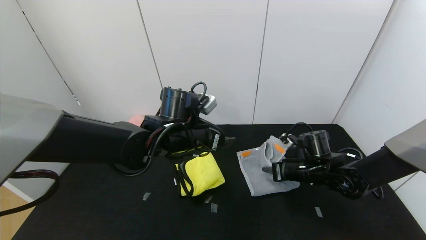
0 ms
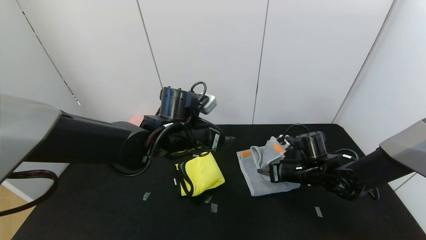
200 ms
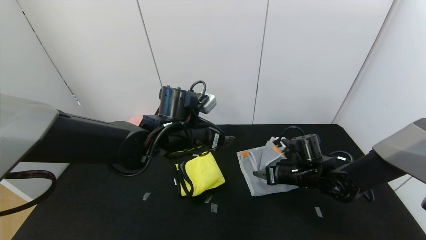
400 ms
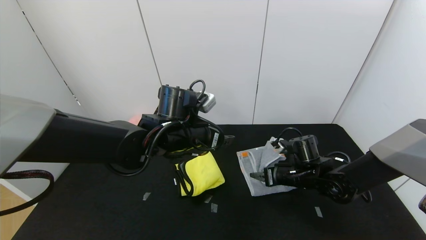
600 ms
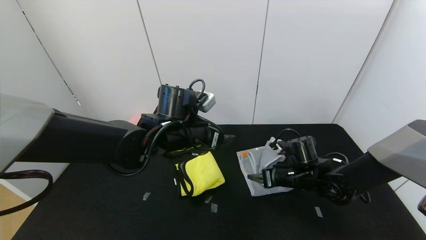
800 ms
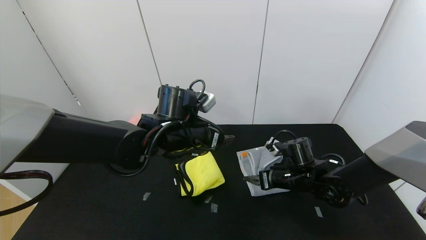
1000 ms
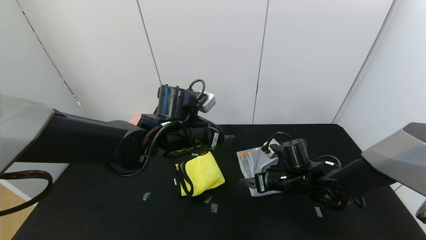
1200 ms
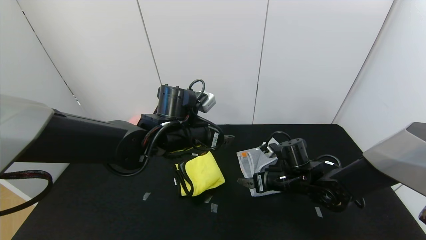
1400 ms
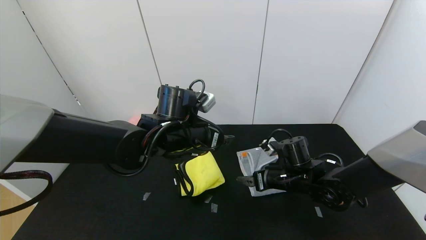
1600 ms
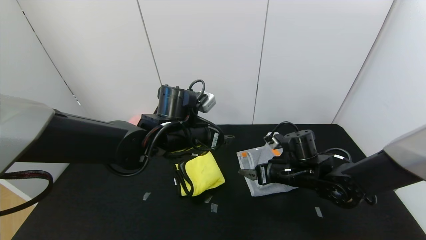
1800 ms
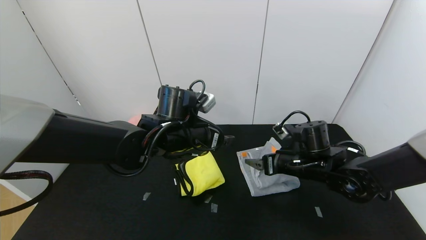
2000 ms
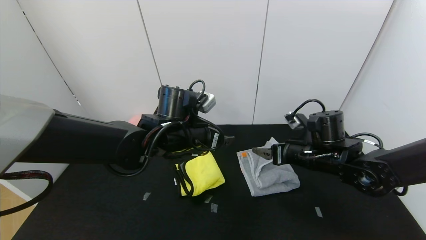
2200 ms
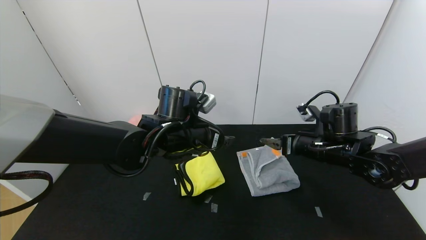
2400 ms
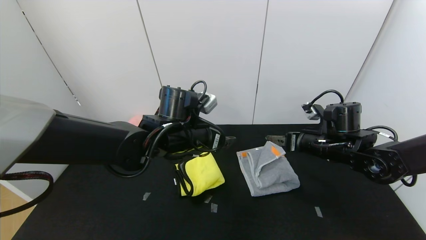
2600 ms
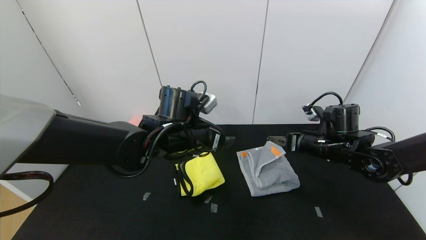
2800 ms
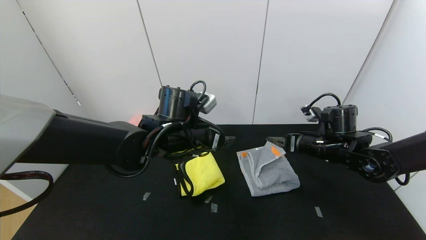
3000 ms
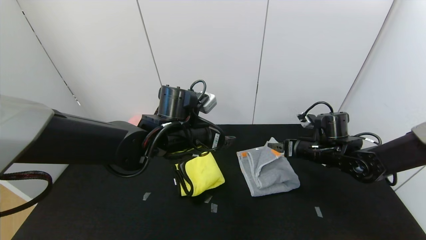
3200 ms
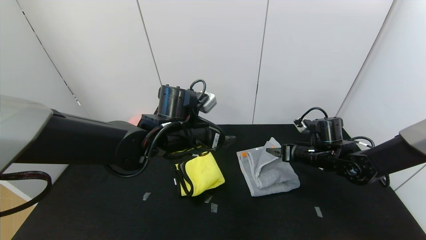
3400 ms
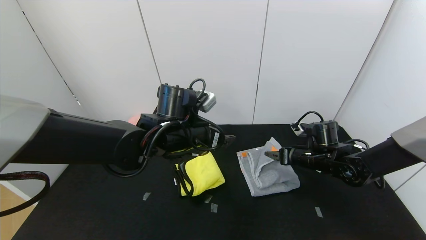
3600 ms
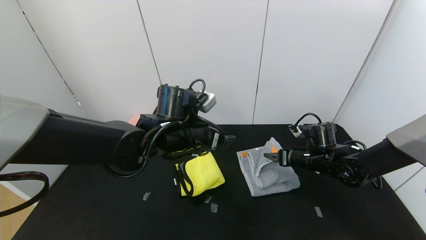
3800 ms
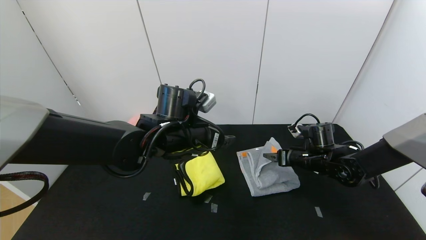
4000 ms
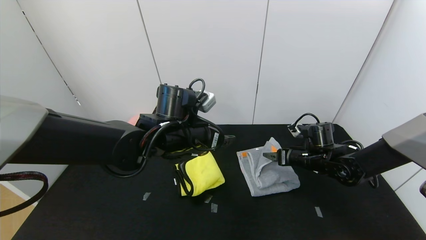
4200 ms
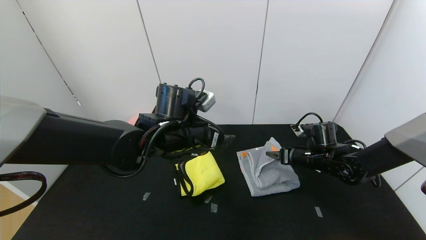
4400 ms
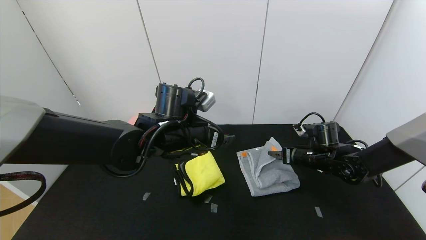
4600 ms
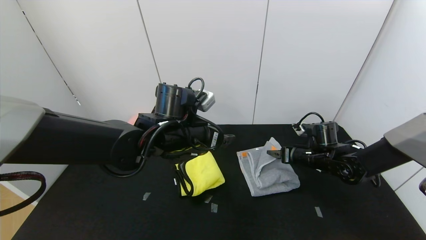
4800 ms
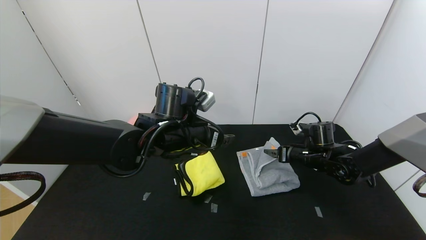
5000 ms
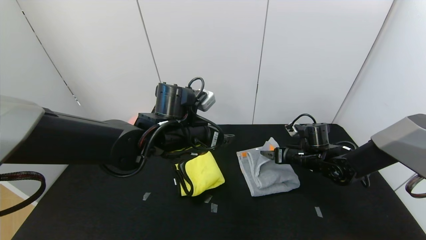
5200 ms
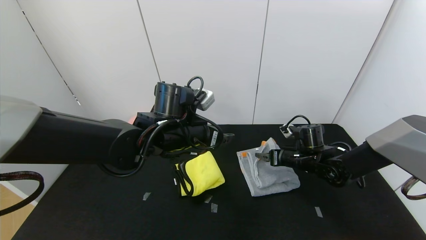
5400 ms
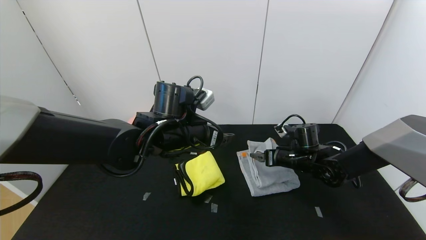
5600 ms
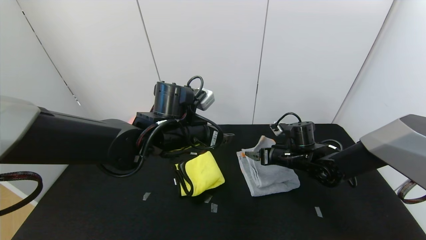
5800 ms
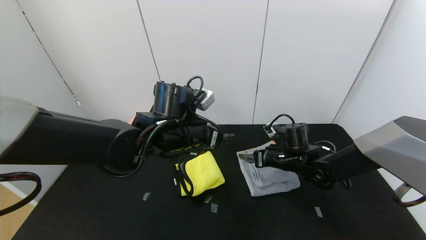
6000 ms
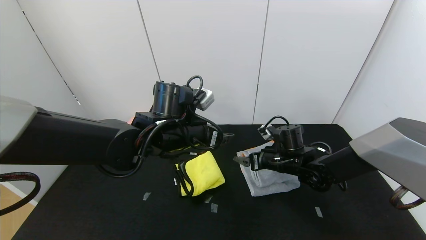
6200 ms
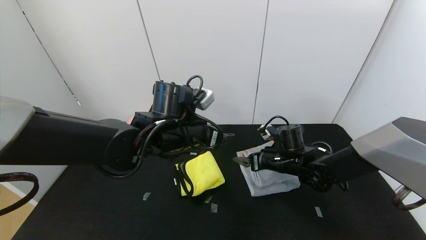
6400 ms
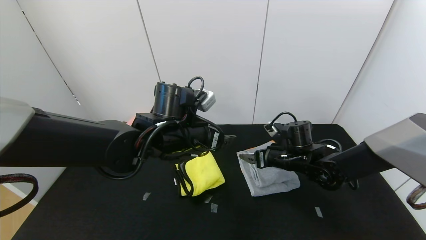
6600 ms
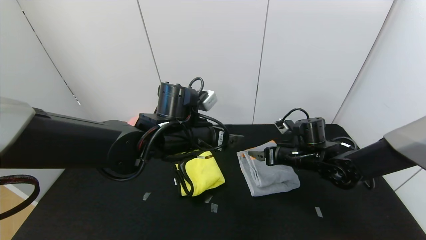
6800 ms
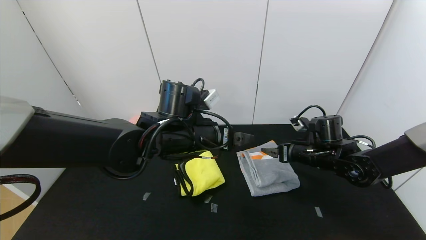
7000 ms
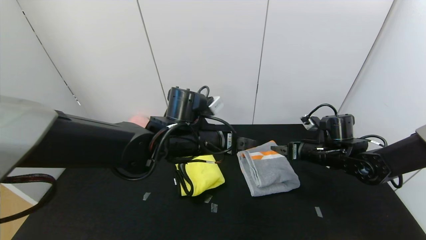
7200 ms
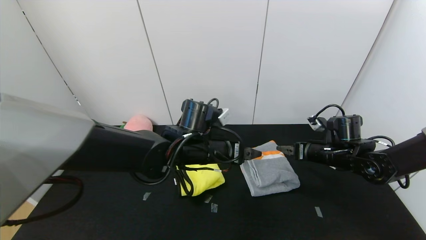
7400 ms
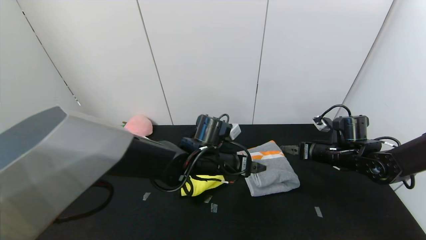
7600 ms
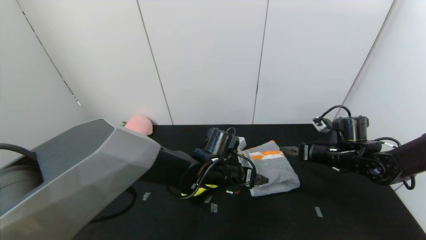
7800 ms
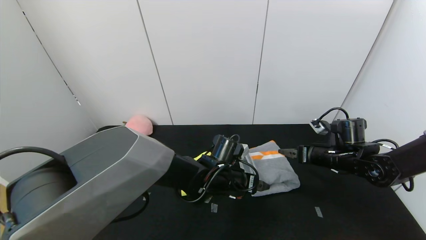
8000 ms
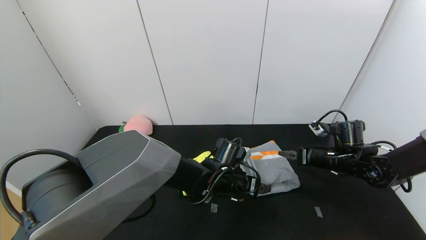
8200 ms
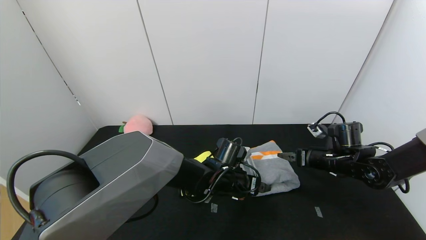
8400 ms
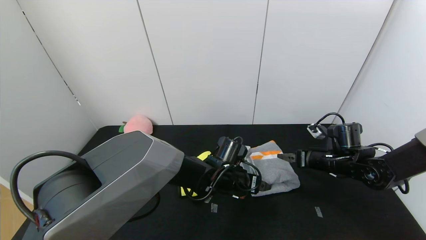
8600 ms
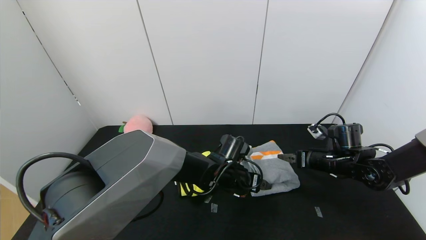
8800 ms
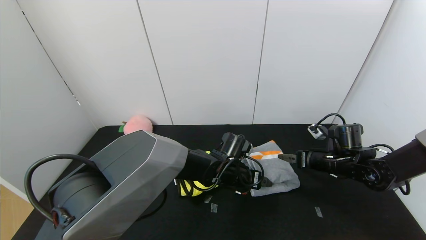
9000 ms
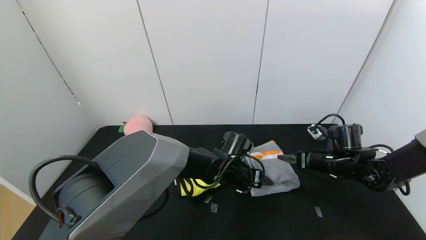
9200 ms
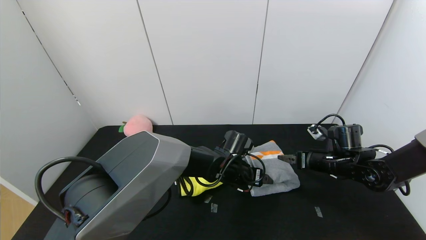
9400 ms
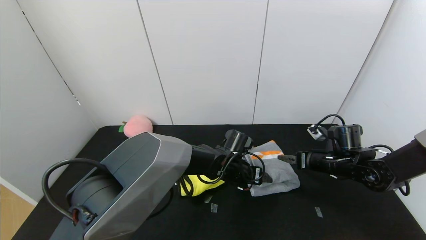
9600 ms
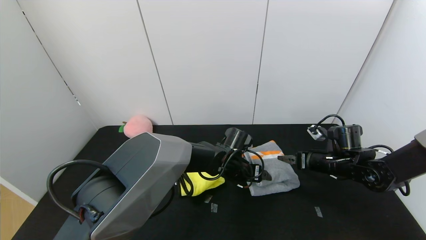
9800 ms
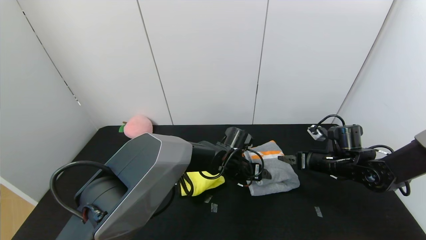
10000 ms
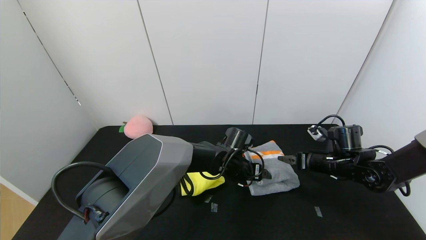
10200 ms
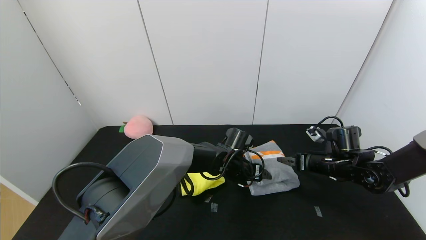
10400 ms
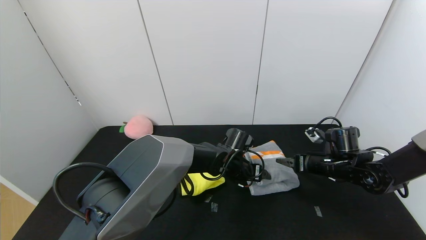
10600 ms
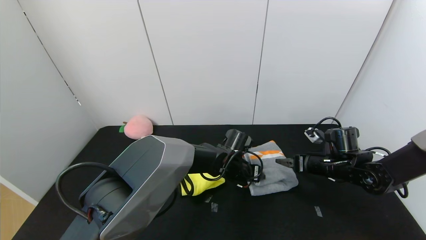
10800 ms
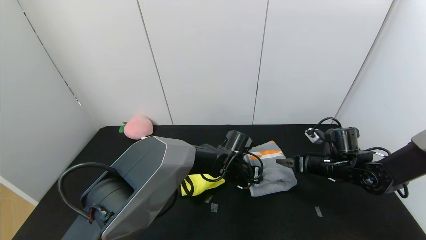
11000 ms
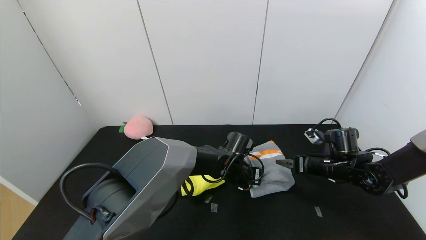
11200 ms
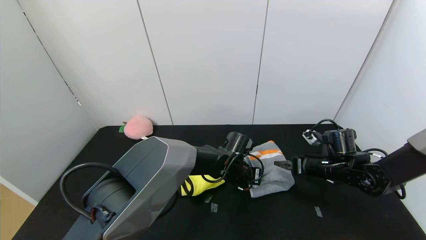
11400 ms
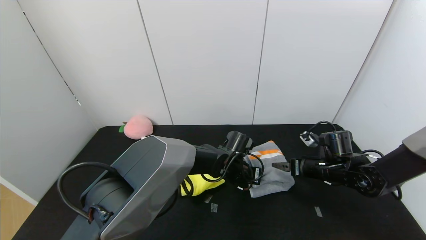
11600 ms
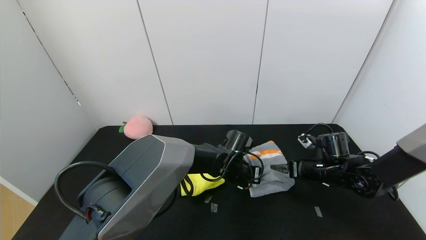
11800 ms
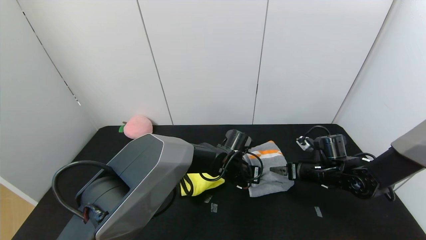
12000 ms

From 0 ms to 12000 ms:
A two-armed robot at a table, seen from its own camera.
Task of the whole recording: Use the gripper to fold the yellow towel and grey towel in half twice,then put the yellow towel on the grey towel.
Step, from 0 ms to 6000 ms: Fold the gray towel from right to left with right gripper.
From 0 ms to 1600 ms: The right gripper shifts approximately 5 cm to the left, and opens its fingers.
From 1600 ms to 3000 ms: The right gripper heads to the right and upward, covering roughly 10 cm.
From 3000 ms to 4400 ms: The right gripper travels downward by about 5 cm.
From 4400 ms to 6000 ms: The right gripper shifts about 10 cm to the left.
From 6000 ms to 7600 ms: The left gripper goes some 10 cm downward and to the right; the right gripper moves to the right, some 10 cm.
From 7600 ms to 9000 ms: The left gripper moves downward, some 5 cm.
From 9000 ms to 10400 ms: The grippers stay close to where they were, moving slightly.
From 10400 ms to 12000 ms: The left gripper closes.

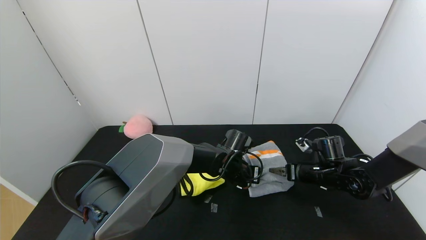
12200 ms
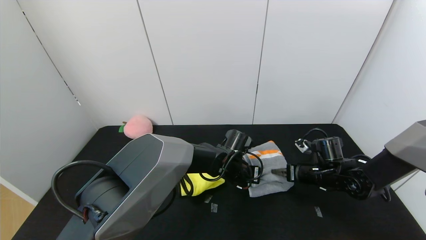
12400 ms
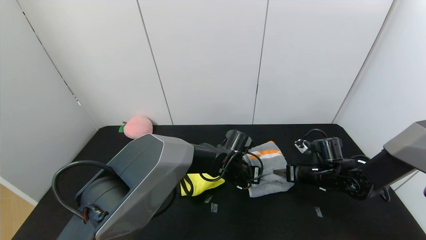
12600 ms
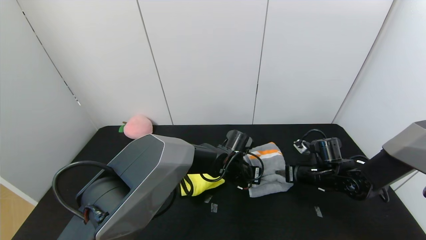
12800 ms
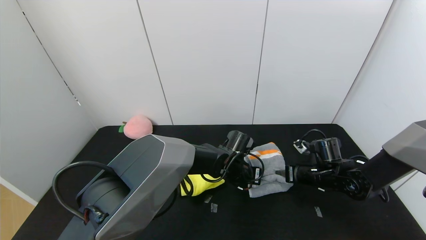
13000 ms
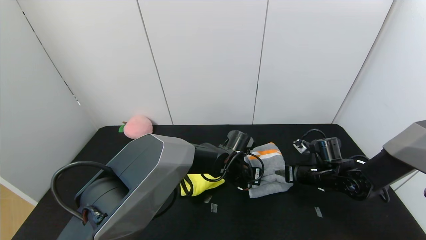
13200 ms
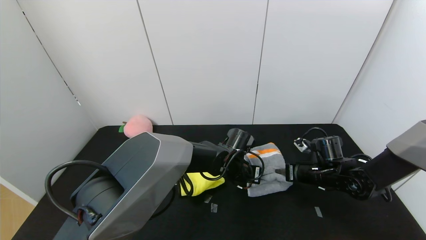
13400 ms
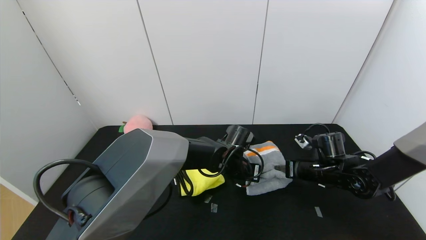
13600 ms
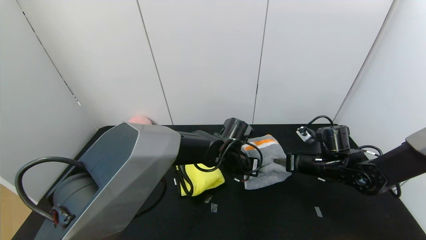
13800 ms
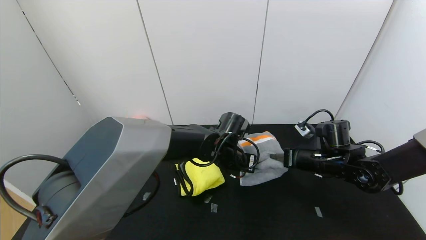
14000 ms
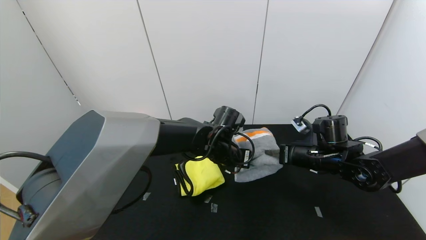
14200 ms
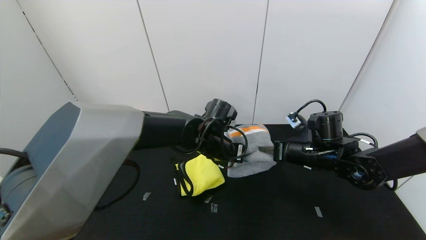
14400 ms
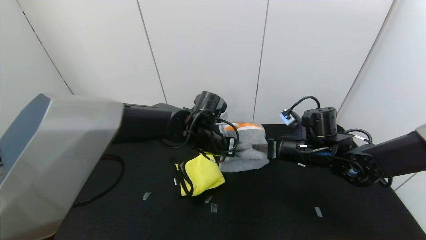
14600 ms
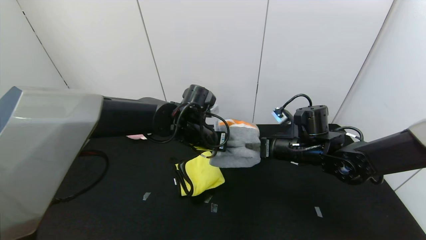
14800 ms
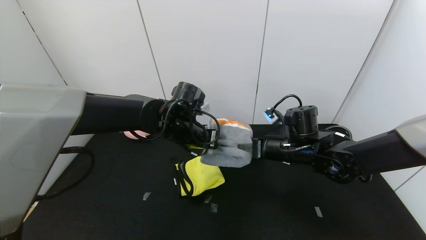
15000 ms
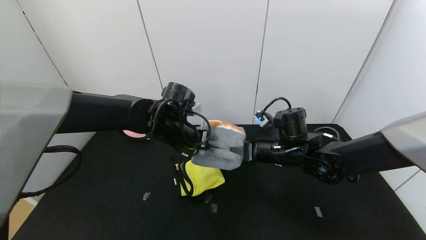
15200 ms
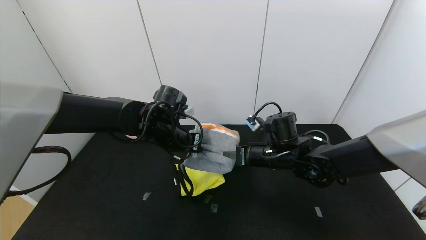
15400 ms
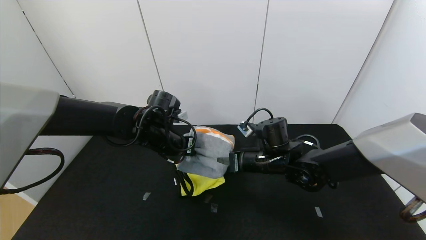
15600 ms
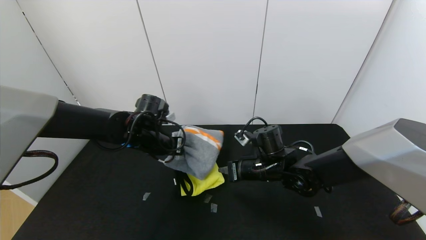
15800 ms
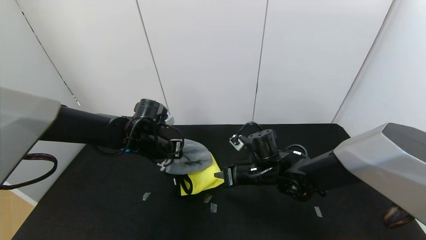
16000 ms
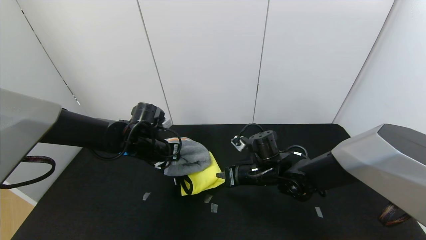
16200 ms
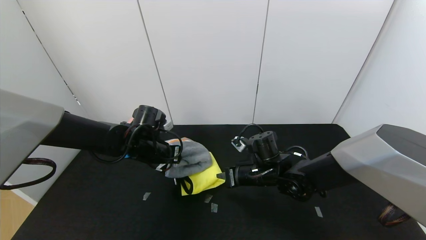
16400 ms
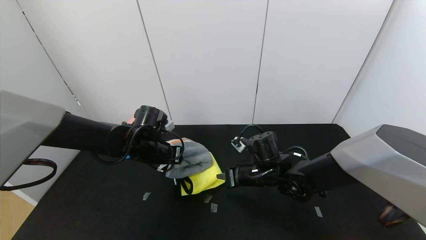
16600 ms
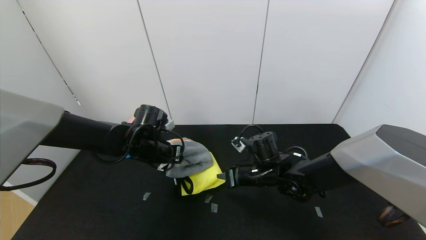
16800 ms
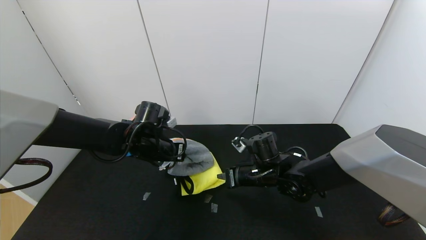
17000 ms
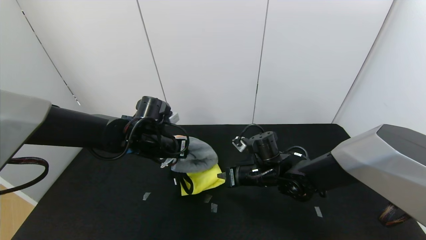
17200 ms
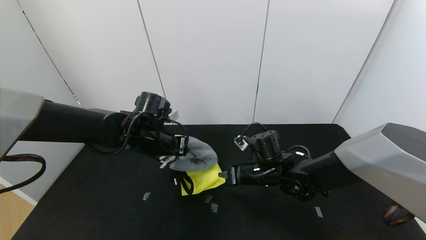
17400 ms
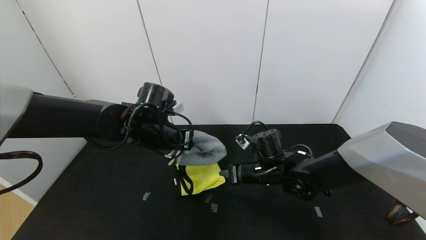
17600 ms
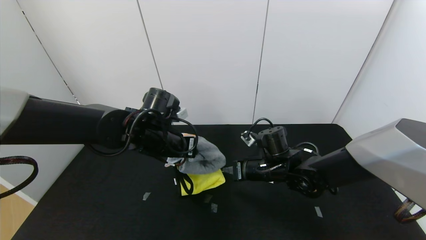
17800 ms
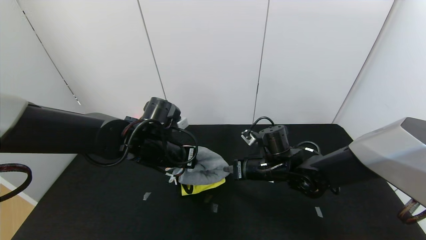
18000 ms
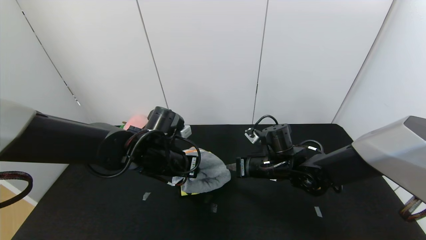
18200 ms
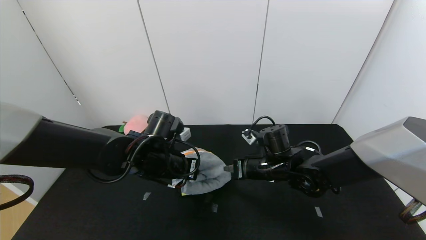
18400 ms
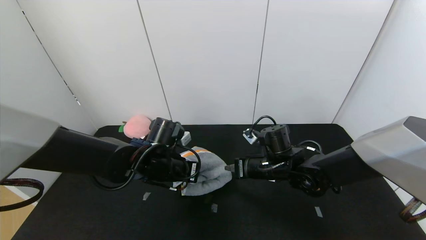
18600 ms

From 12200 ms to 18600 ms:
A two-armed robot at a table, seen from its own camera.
Task of the whole recording: Use the gripper to fold the yellow towel and grey towel in half twice,then put the yellow towel on the grey towel.
From 12200 ms to 13800 ms: The right gripper closes its fingers.
From 13800 ms to 15400 ms: The right gripper is displaced to the left by roughly 15 cm, while the left gripper is displaced to the left and upward by about 20 cm.
From 15400 ms to 17000 ms: The right gripper ends up approximately 5 cm from where it was.
From 17000 ms to 18600 ms: The left gripper shifts by approximately 5 cm.
